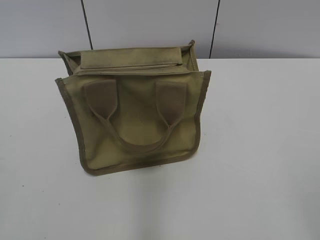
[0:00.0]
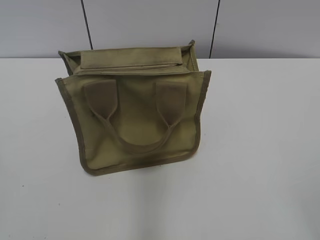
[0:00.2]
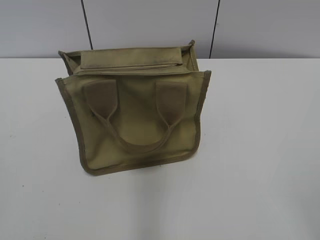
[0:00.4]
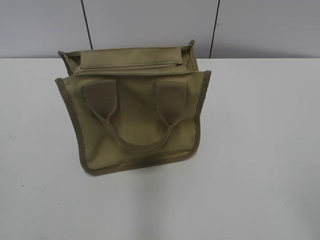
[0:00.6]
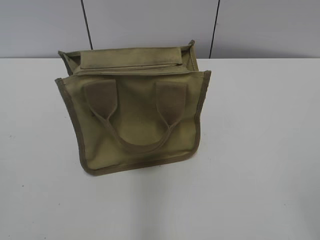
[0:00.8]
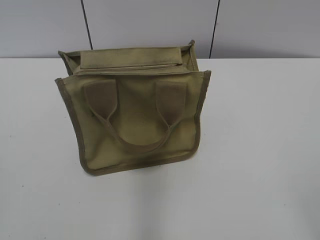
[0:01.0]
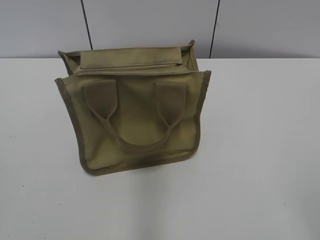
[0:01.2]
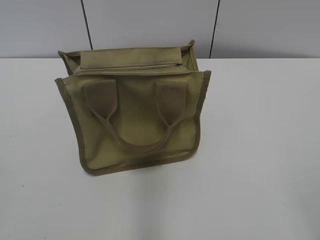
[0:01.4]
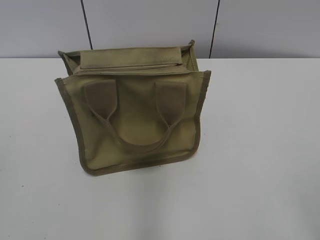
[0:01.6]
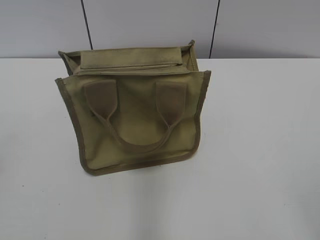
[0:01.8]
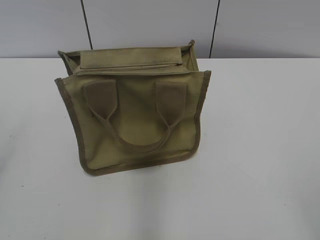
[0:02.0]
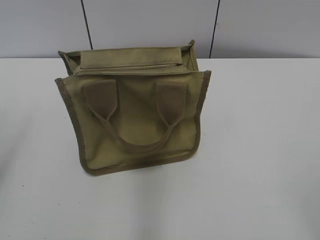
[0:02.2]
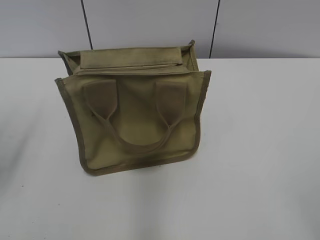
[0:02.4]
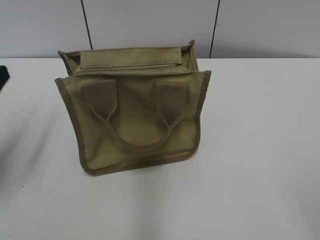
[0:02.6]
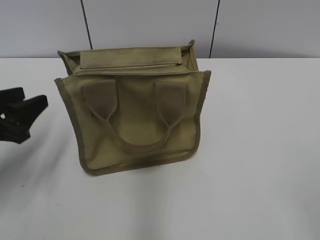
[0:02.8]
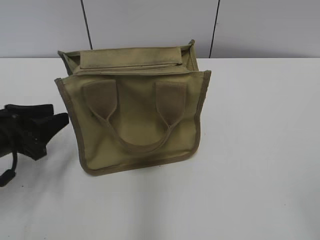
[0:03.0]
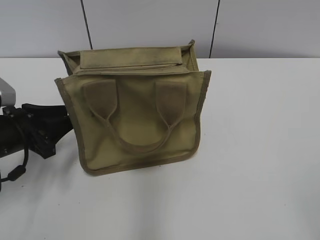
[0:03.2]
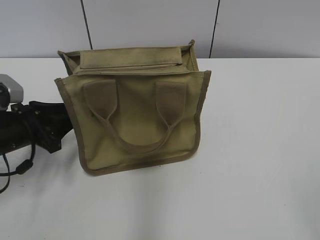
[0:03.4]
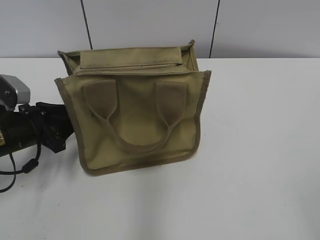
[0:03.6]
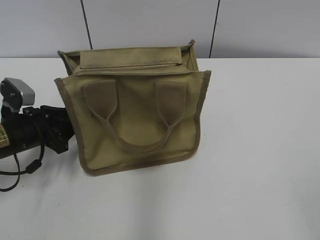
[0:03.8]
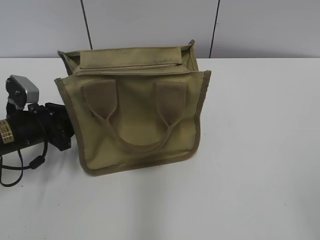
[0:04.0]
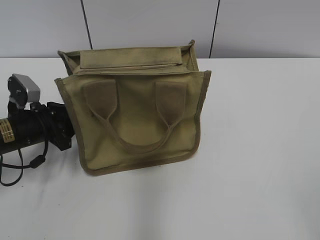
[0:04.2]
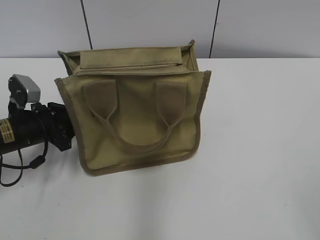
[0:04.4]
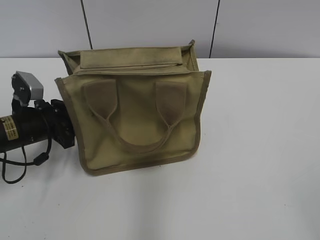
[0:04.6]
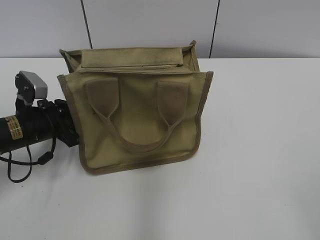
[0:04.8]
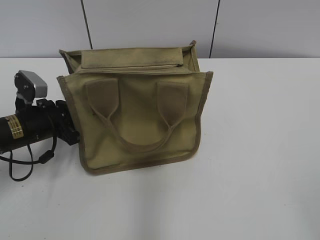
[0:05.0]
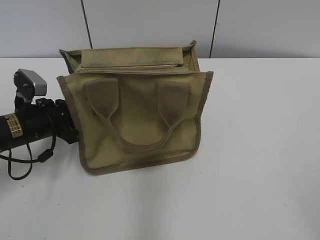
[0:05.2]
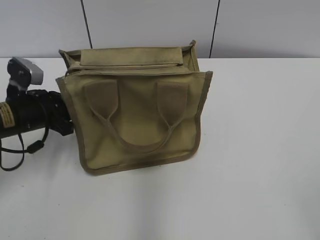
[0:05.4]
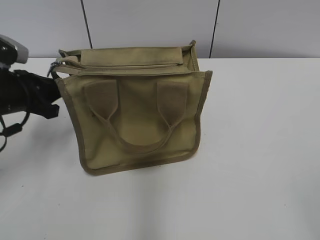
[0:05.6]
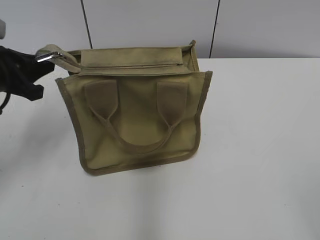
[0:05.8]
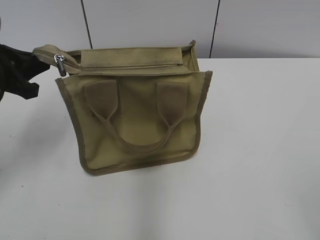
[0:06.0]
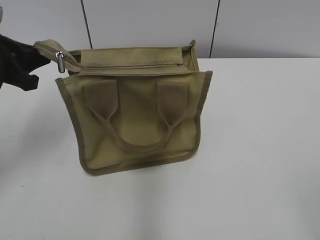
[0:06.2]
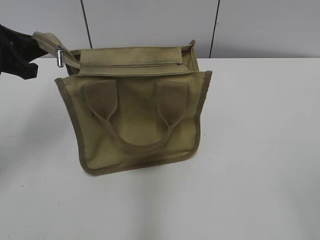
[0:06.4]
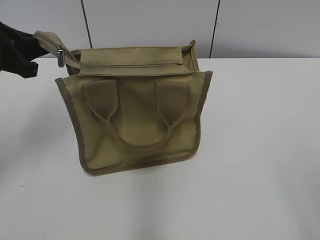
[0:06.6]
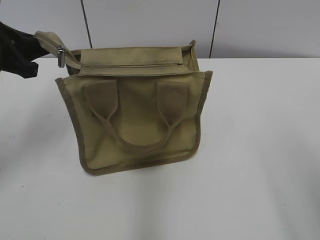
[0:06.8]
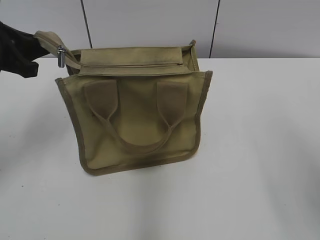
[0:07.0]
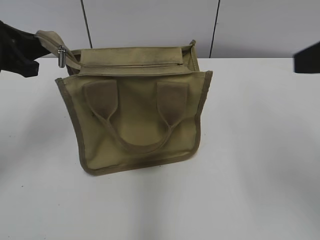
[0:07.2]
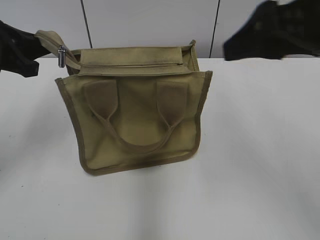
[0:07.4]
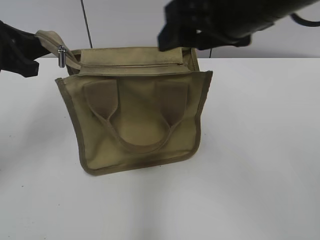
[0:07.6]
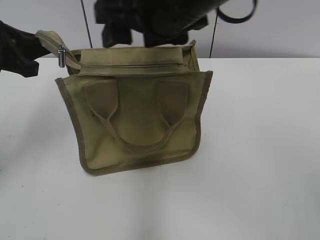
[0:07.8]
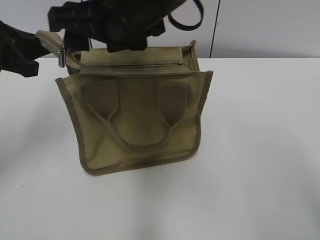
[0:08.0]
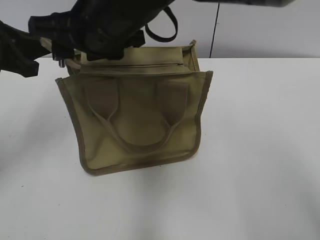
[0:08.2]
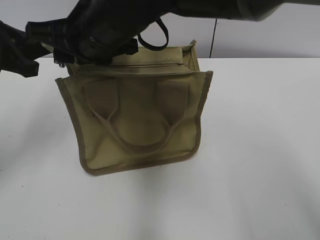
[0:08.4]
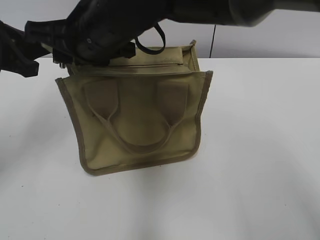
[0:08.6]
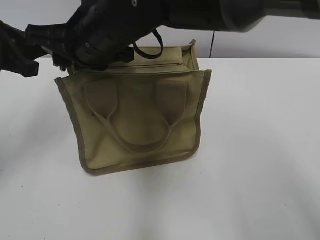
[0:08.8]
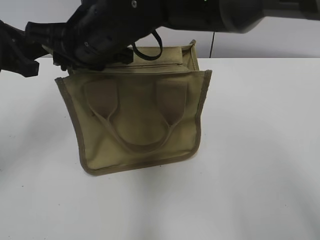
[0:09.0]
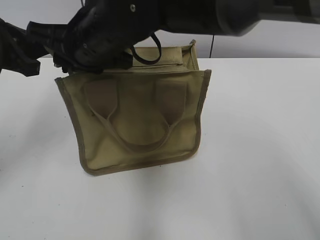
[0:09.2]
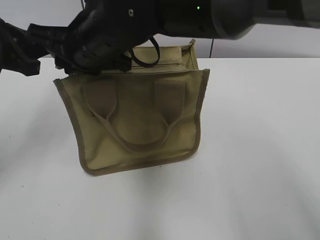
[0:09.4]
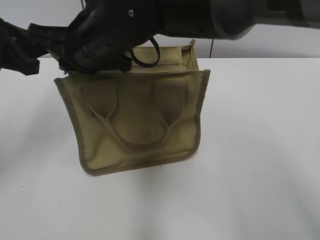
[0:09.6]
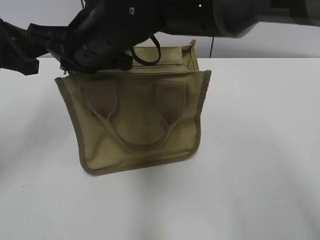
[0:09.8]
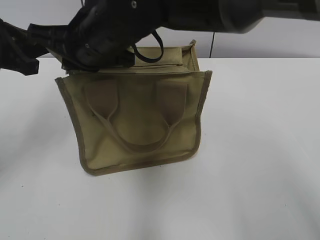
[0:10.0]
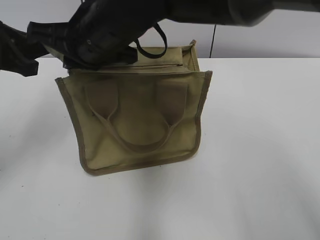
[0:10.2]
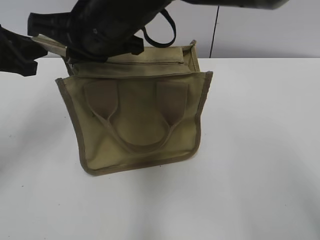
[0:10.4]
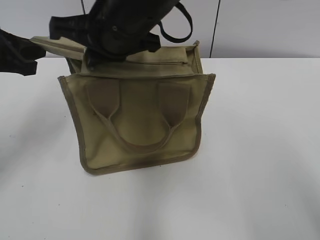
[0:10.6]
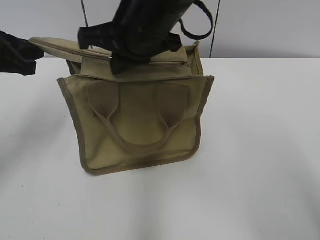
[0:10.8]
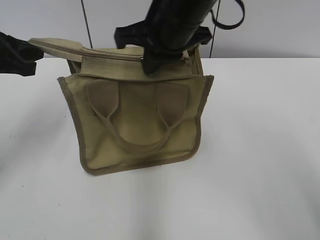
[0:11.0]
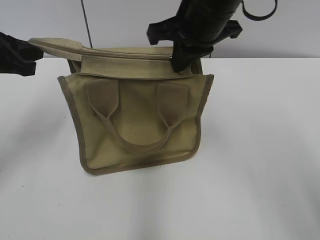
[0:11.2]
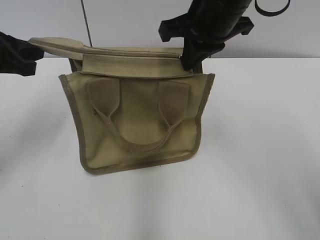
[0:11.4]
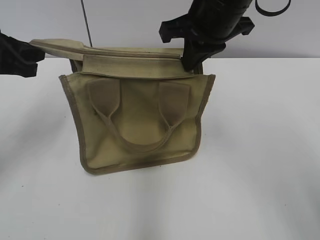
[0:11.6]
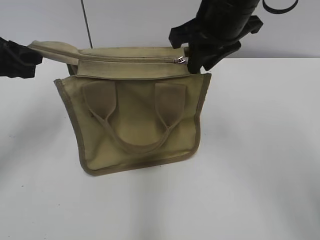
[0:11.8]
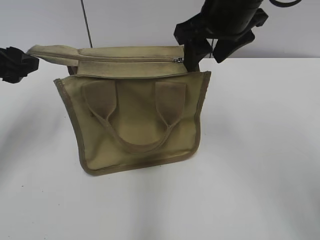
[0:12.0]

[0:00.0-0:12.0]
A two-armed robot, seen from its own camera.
Step, 0.0 to 11.8 s: Zip up the bag with your right hand.
1.6 to 3.0 s: The left gripper goes about 30 cm forward and downward.
3.0 to 4.4 s: The left gripper is displaced forward by about 5 cm.
4.4 to 6.0 s: The left gripper travels upward by roughly 15 cm, and closes.
6.0 to 7.6 s: The right gripper moves forward and to the left, some 30 cm.
7.6 to 9.0 s: The right gripper goes approximately 20 cm to the left and downward, and closes up.
9.0 to 10.4 s: The right gripper closes up.
10.4 to 12.0 s: The left gripper opens. Meanwhile the right gripper is displaced to the right by approximately 15 cm, and opens its fingers.

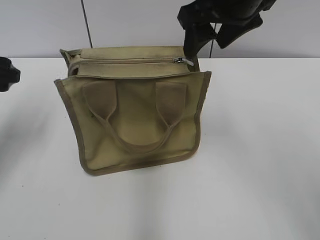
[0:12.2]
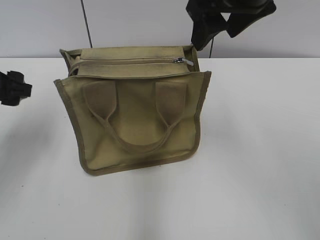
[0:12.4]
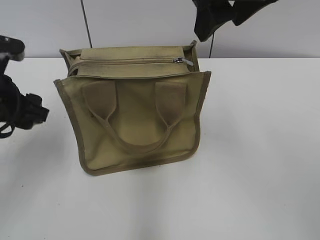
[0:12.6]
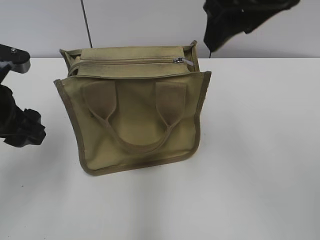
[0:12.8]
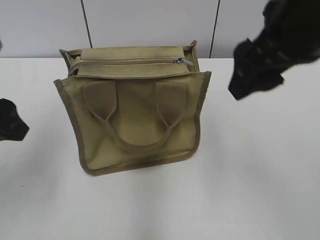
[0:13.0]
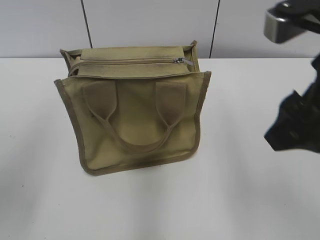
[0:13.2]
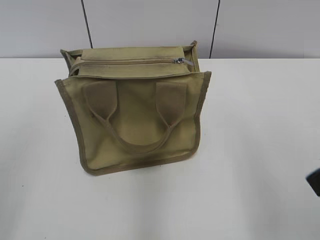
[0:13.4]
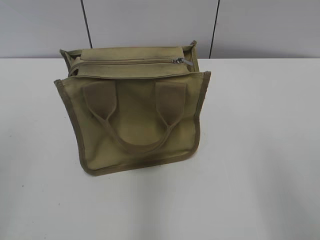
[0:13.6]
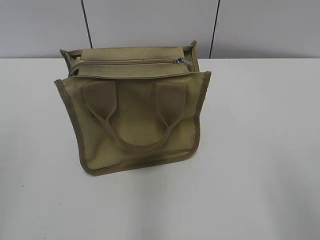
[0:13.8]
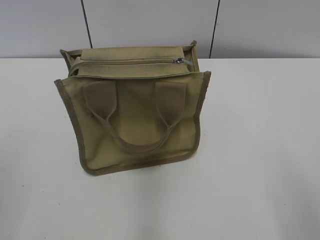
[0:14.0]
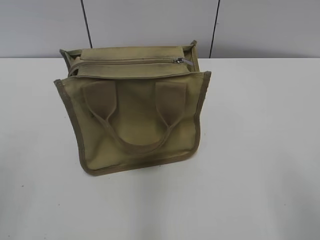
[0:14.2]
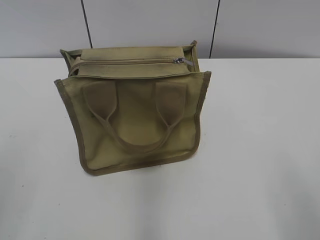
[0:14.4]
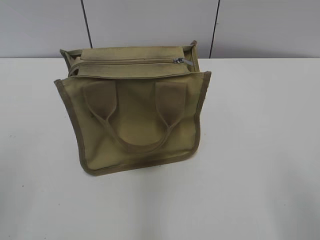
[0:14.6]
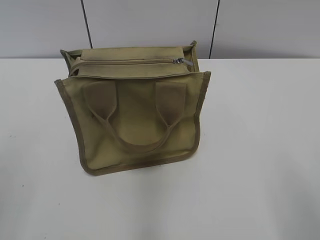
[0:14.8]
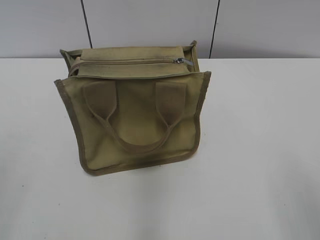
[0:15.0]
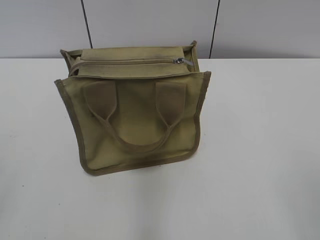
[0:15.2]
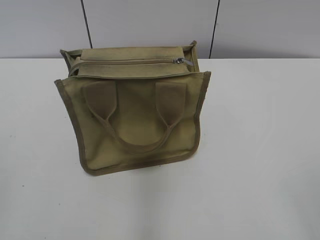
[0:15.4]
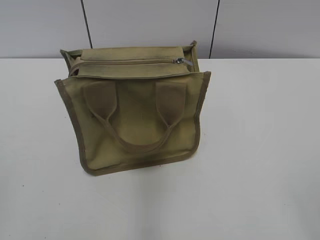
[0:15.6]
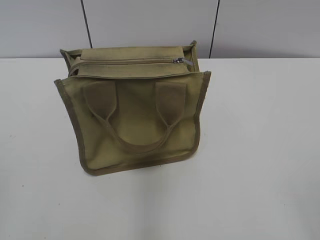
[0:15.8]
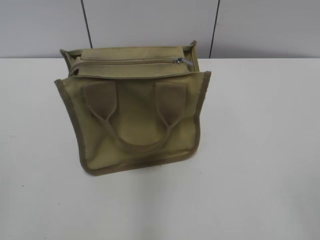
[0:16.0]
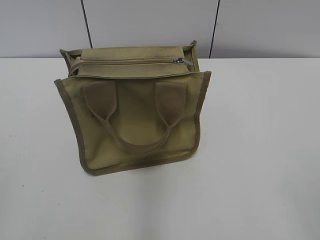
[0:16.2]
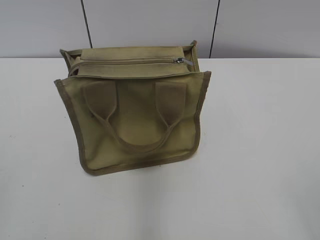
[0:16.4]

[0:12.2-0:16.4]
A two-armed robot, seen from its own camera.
12.2 to 13.6 s: The right gripper moves backward and to the right, approximately 30 cm, while the left gripper moves backward and upward, some 25 cm.

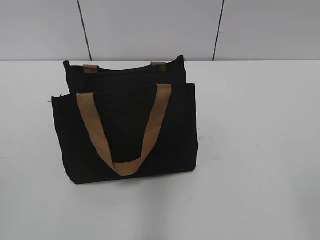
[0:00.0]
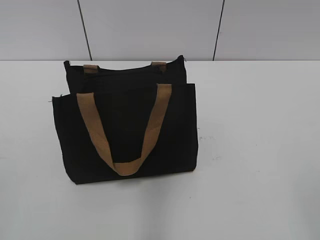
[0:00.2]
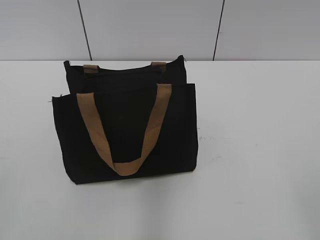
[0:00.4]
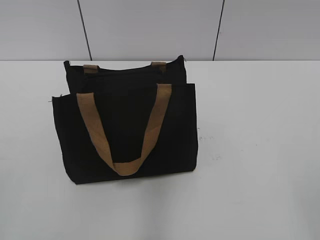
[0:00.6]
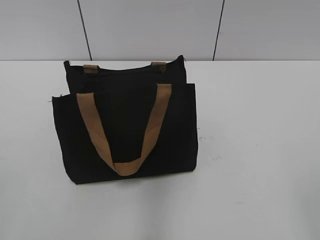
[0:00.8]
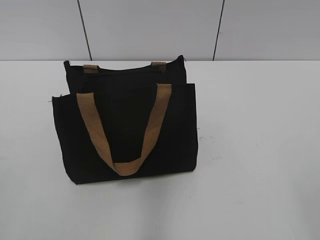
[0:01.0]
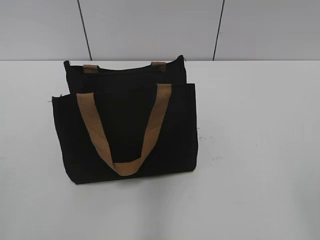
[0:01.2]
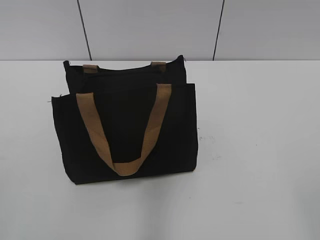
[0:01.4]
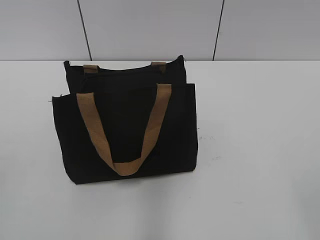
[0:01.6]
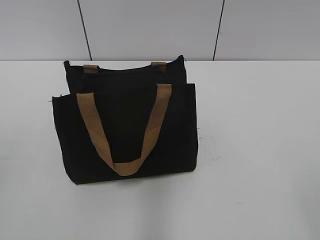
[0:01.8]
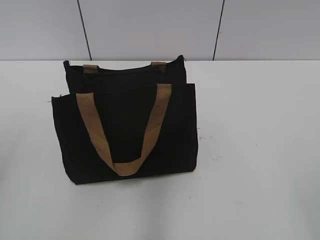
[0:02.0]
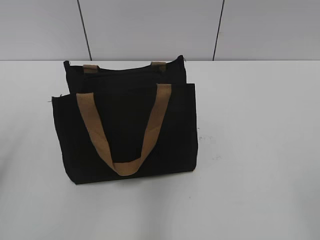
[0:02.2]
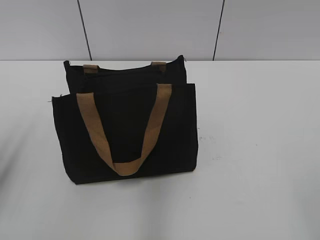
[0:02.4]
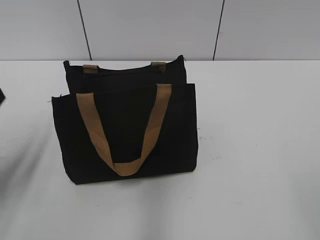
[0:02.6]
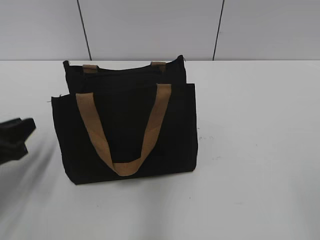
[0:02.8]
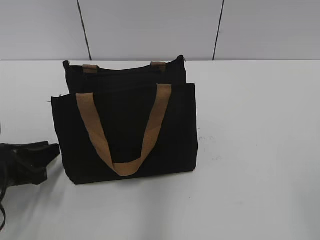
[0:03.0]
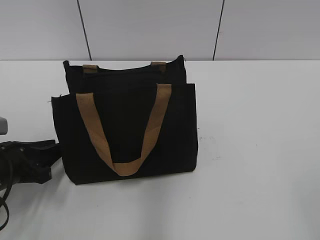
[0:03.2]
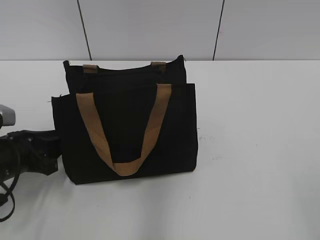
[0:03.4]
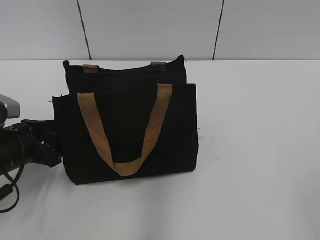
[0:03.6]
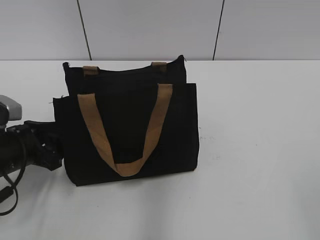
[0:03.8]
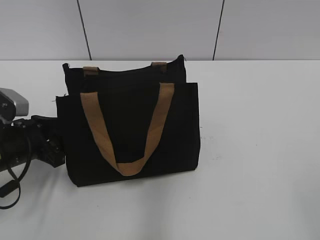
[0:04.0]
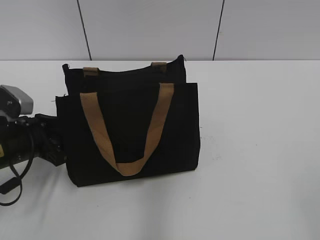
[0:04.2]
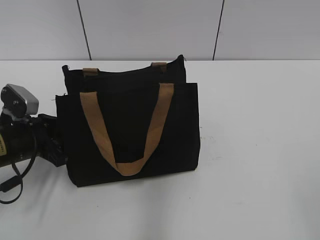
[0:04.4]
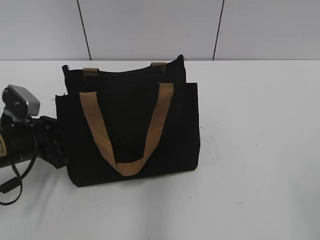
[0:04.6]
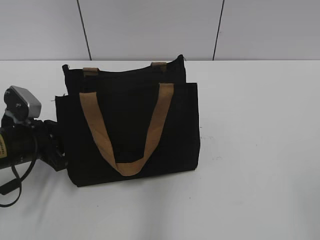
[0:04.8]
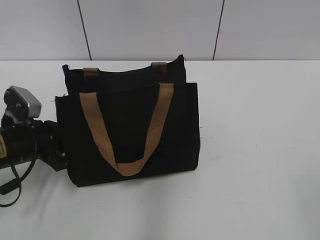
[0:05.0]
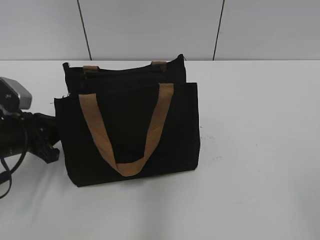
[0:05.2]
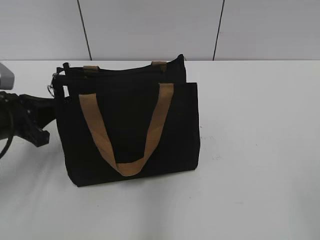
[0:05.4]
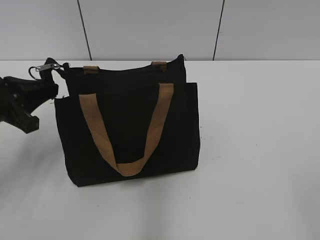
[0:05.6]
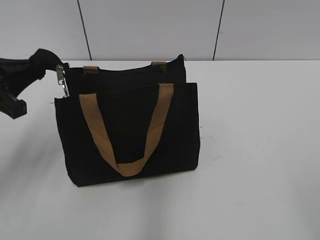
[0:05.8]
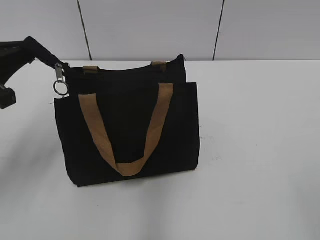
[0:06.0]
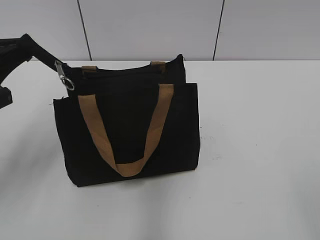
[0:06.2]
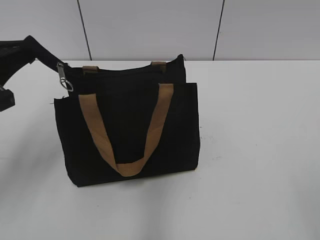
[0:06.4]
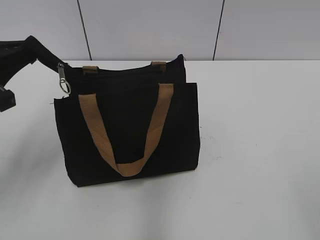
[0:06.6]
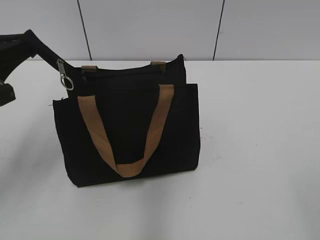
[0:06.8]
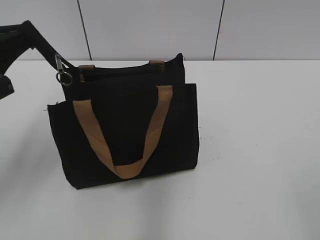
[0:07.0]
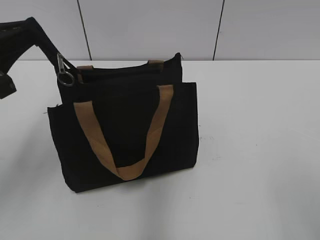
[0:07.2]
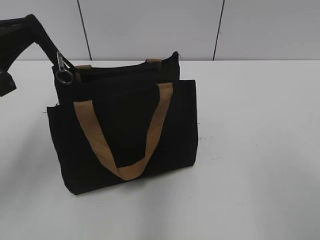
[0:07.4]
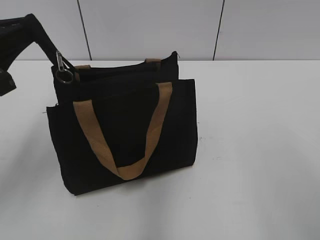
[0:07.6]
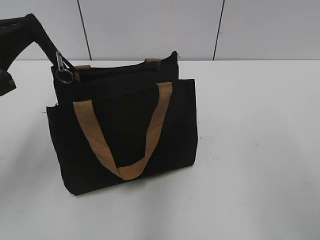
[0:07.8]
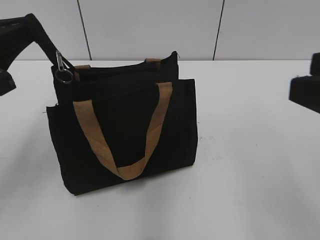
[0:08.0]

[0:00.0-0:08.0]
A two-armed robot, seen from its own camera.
1.6 to 3.2 s: The left gripper heads downward and forward, covering roughly 30 cm.
3.2 to 4.8 s: The left gripper is displaced forward by roughly 5 cm, and opens, then closes again.
4.8 to 6.4 s: The left gripper moves upward, roughly 15 cm.
6.4 to 8.0 s: The right gripper heads forward, covering roughly 10 cm.
